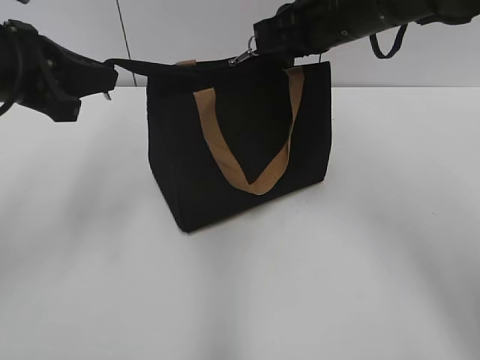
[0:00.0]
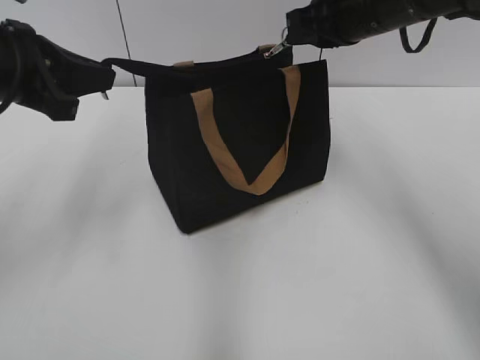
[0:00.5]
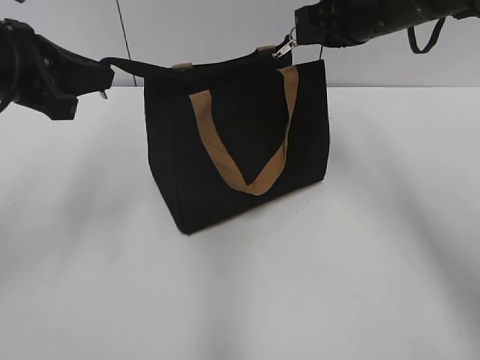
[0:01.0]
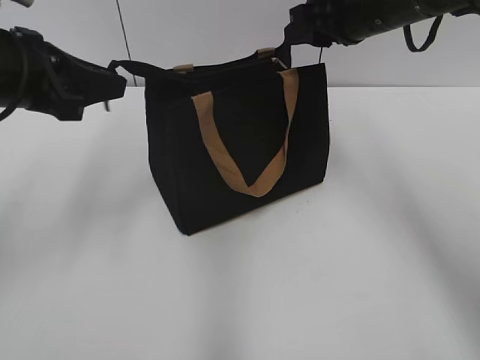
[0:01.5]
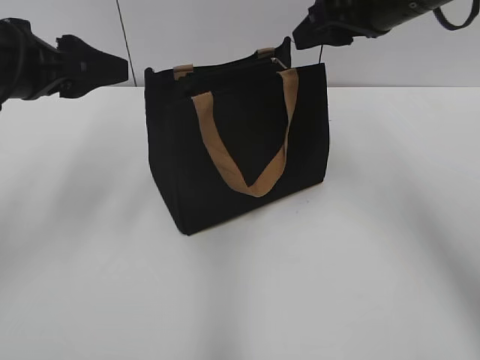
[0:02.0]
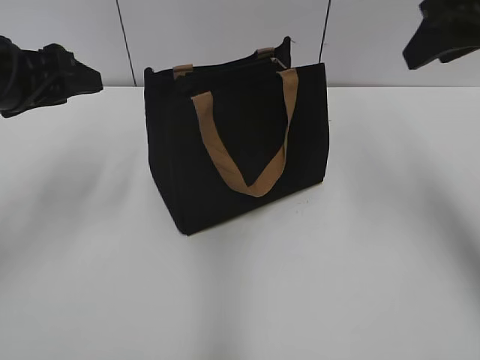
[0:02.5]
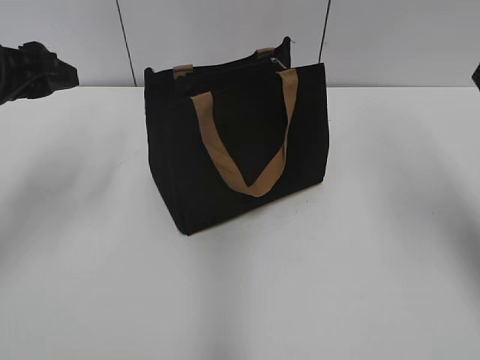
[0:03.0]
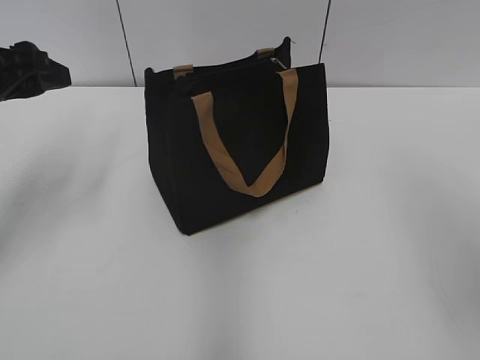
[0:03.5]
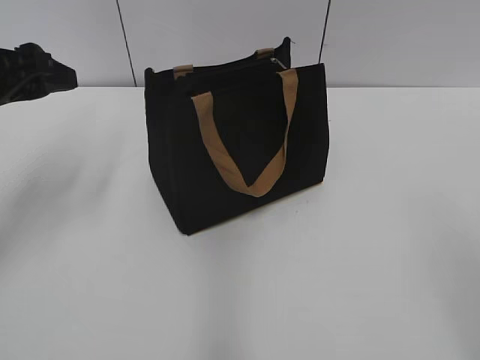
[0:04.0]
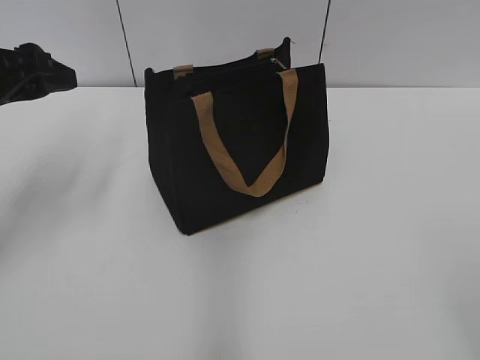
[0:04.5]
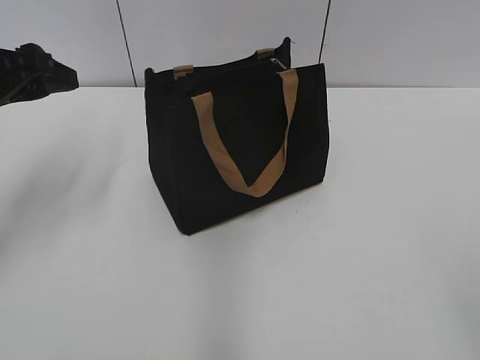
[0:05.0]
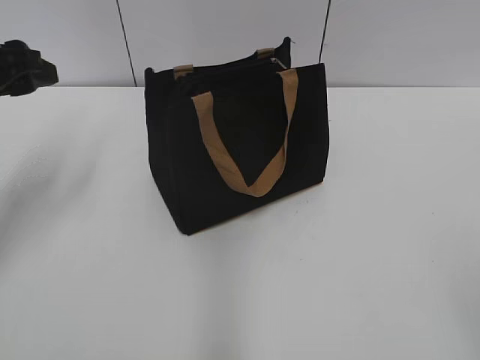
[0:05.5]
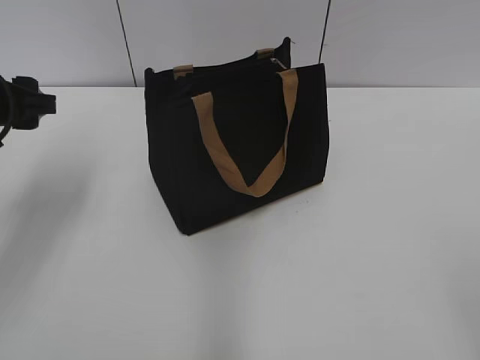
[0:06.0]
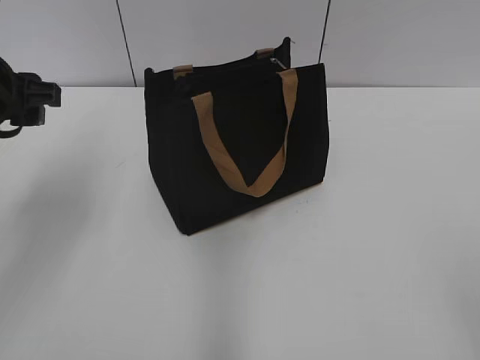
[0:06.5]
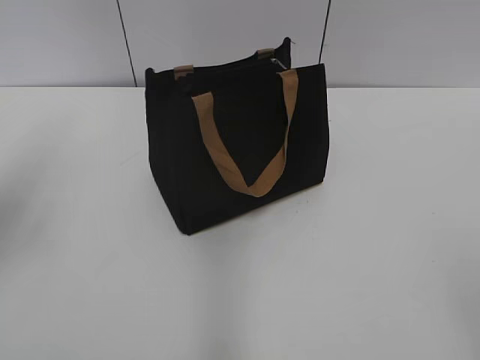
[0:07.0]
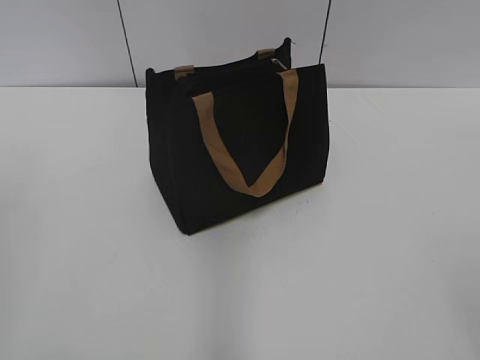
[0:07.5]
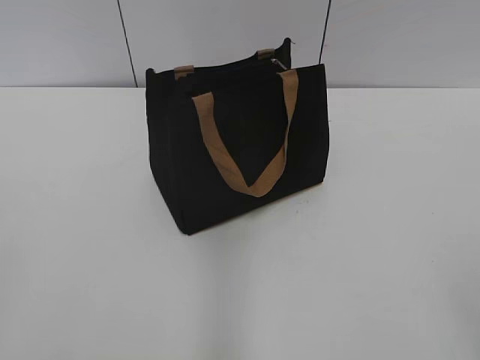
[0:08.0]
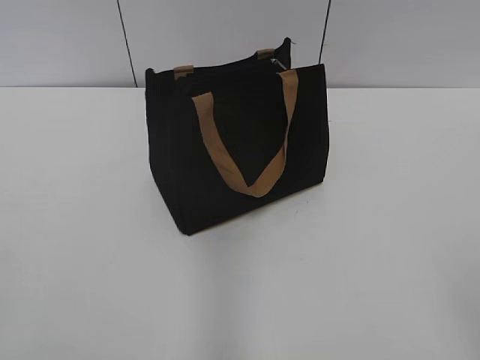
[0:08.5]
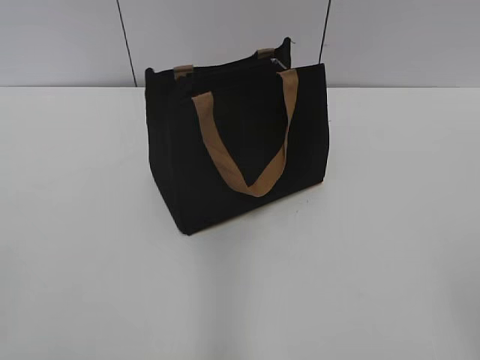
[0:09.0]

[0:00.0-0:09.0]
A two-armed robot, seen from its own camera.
Step, 0:01.5 to 0:02.0: Grab the zipper with your left hand.
0:00.0 to 0:02.0: The left gripper opens, while the right gripper ends up some 5 cm from where it was, and opens.
0:02.0 to 0:04.5: The right gripper moves backward, about 35 cm.
0:04.5 to 0:07.0: The left gripper ends up approximately 5 cm from where it was.
0:07.0 to 0:09.0: The left gripper goes approximately 25 cm backward.
